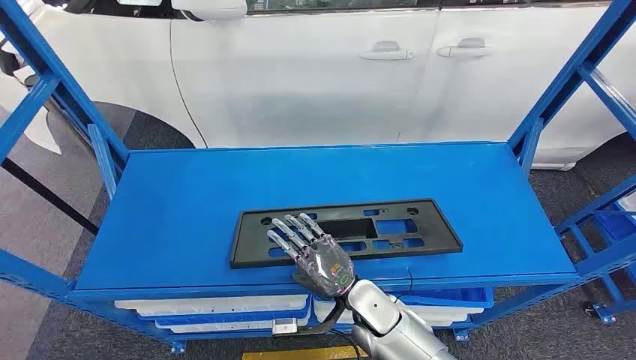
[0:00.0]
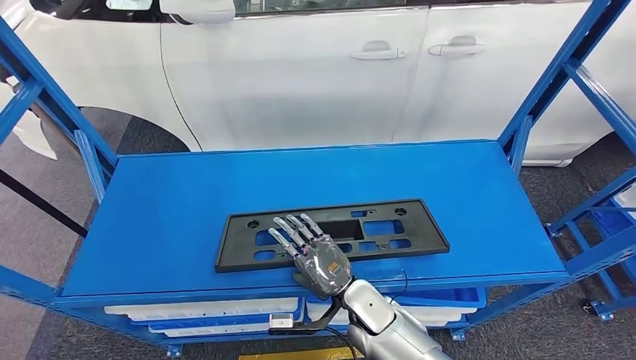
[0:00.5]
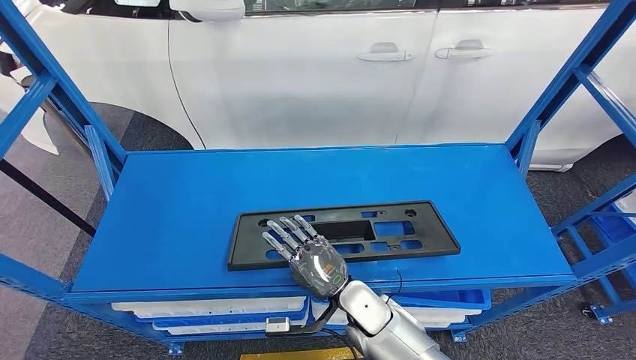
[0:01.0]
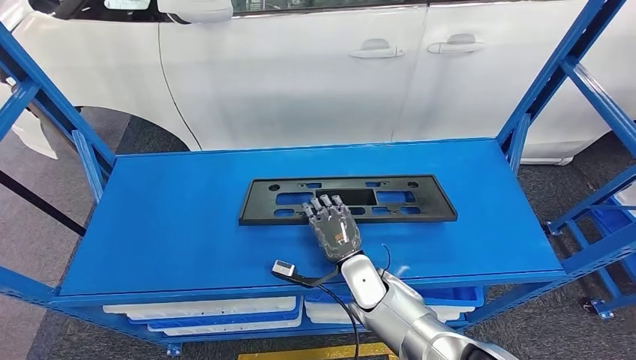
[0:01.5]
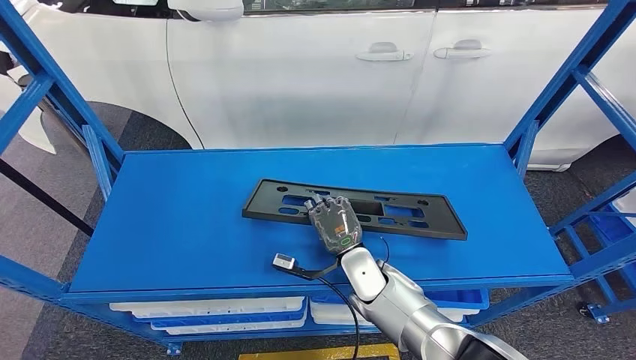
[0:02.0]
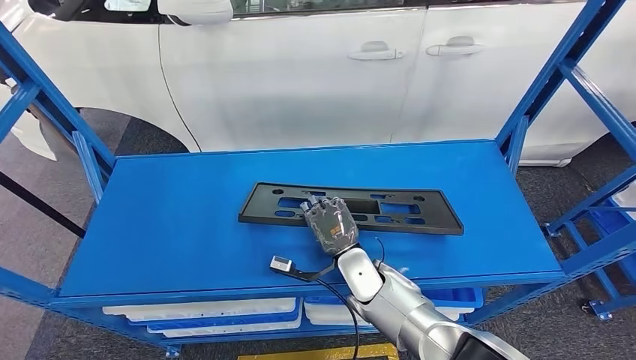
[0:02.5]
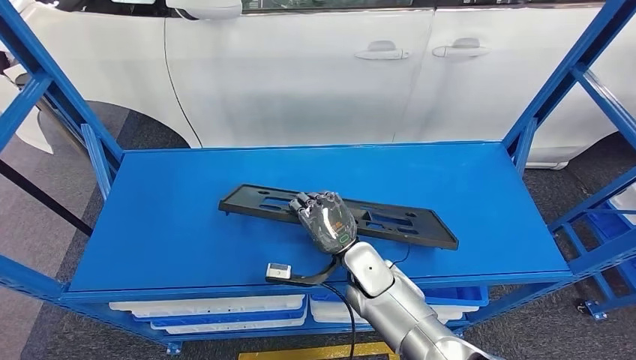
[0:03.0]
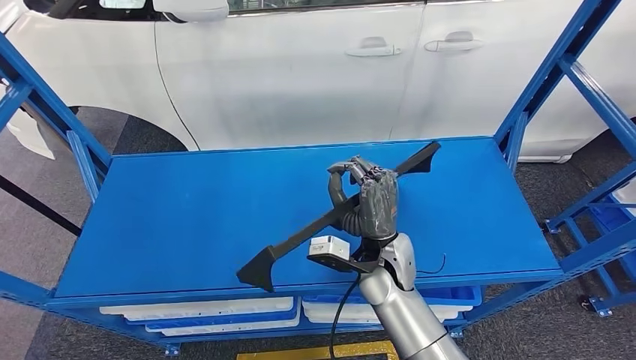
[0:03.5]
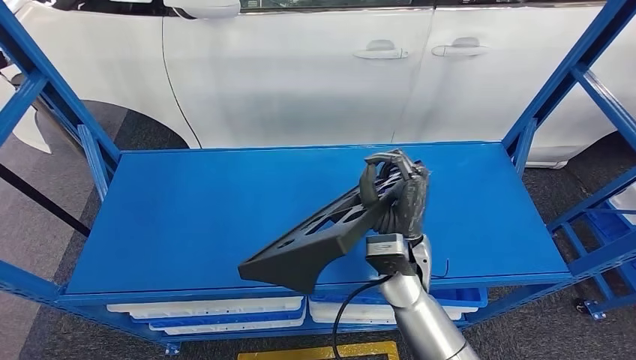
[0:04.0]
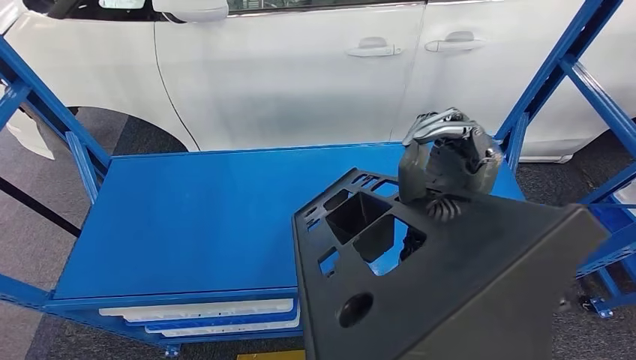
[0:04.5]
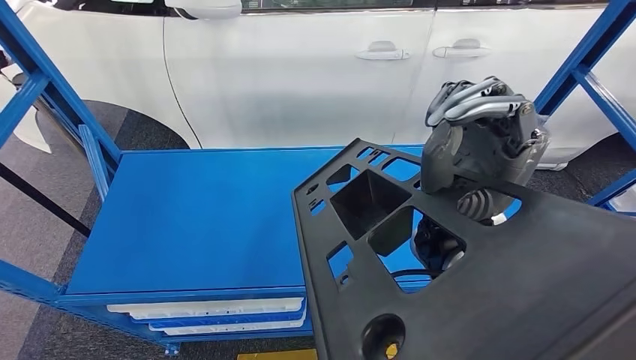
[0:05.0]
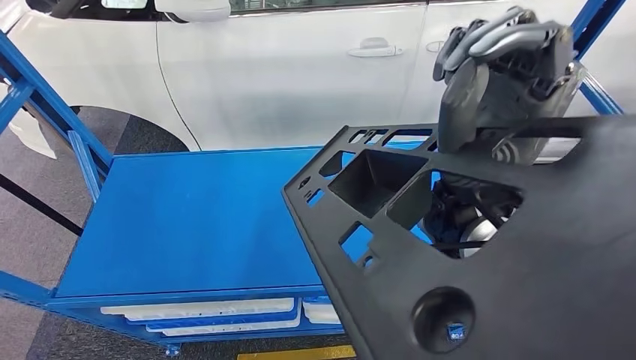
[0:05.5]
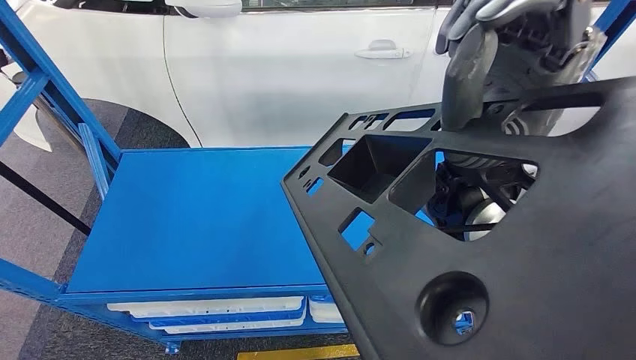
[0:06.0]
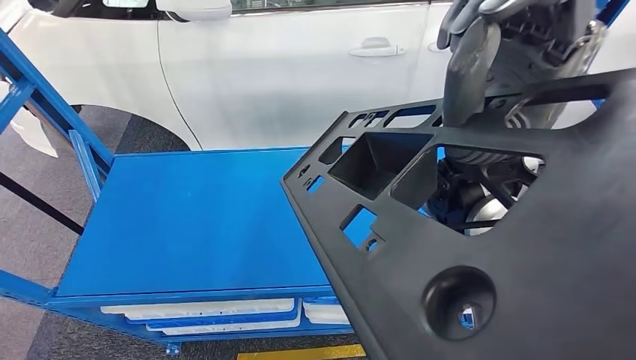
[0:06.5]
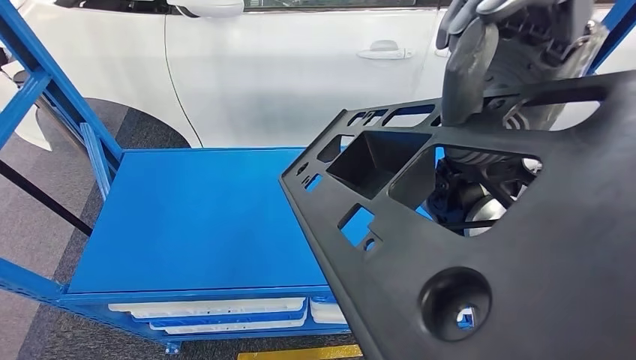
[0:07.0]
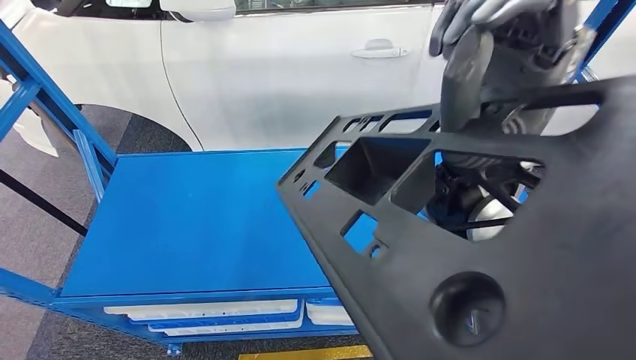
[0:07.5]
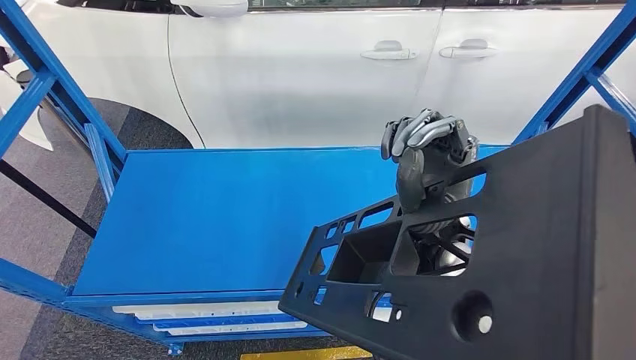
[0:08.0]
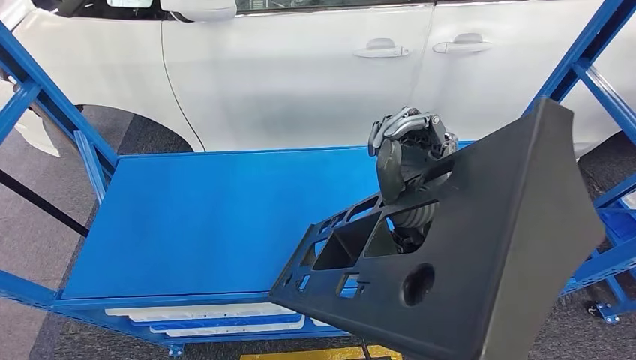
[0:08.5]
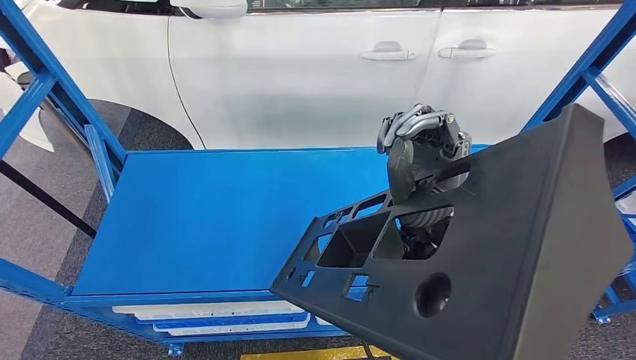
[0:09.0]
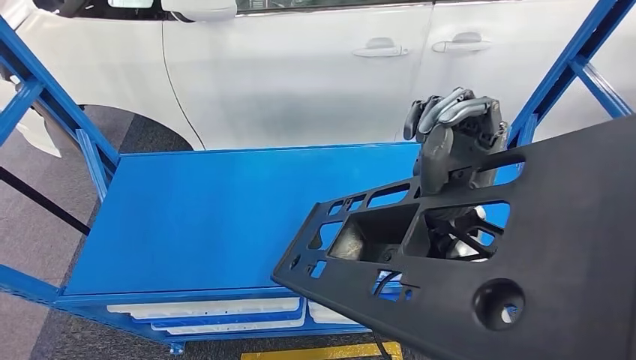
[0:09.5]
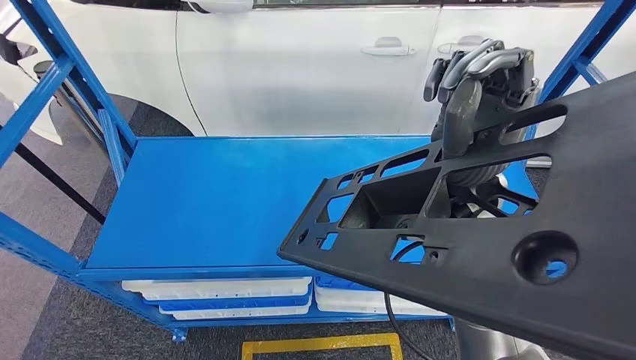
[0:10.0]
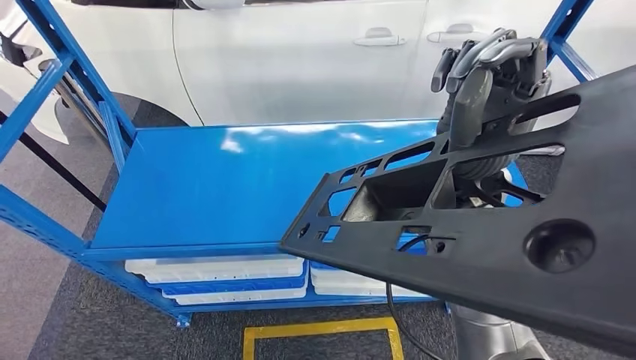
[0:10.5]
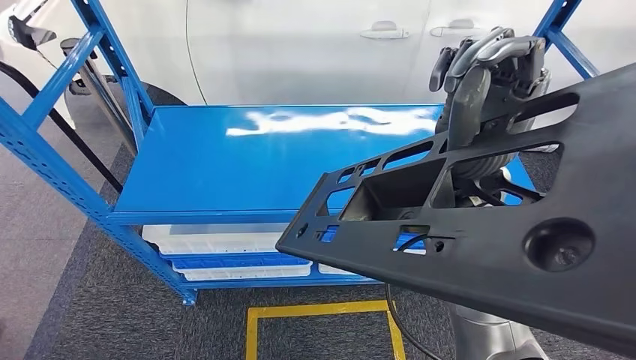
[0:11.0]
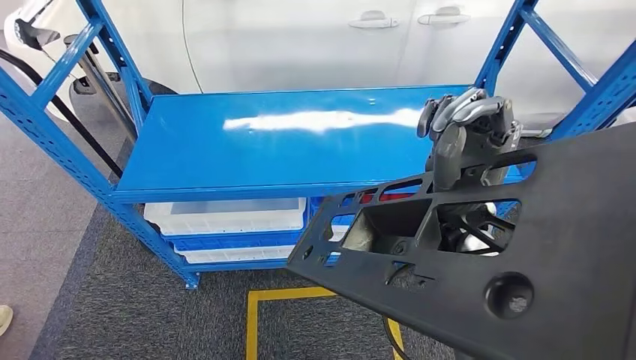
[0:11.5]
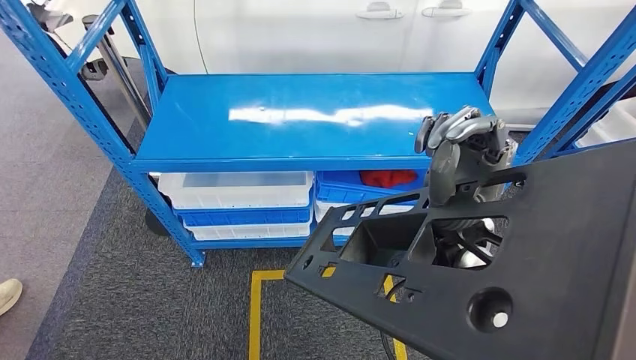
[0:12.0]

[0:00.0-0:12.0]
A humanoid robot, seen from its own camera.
Step, 0:00.0 to 0:11.5: Pick up the large material from the shelf.
0:02.0 to 0:04.0: The right hand moves upward, approximately 10 cm.

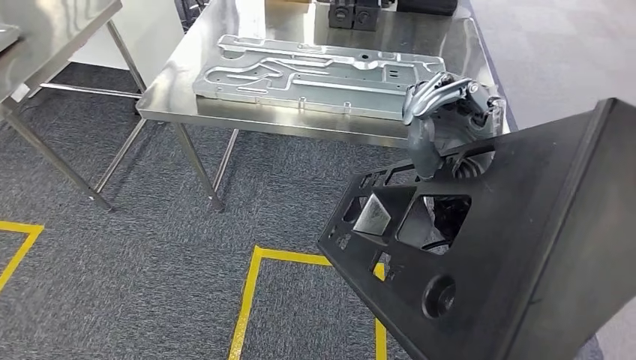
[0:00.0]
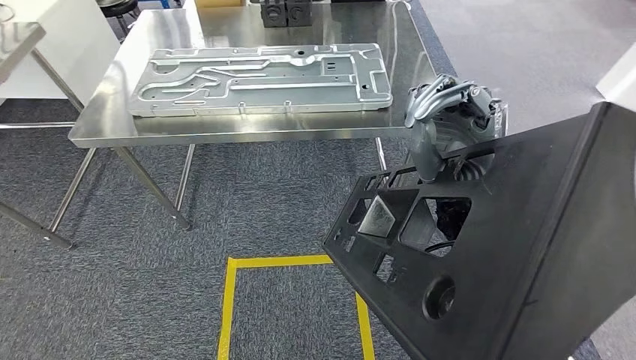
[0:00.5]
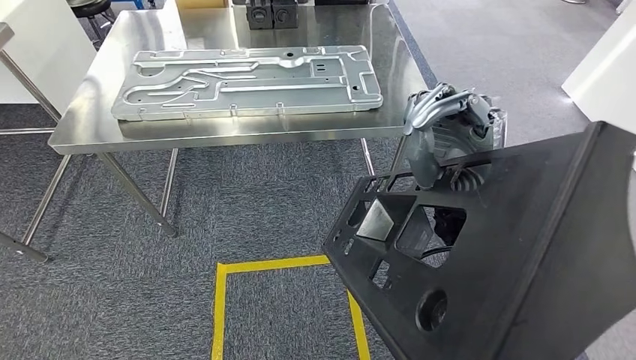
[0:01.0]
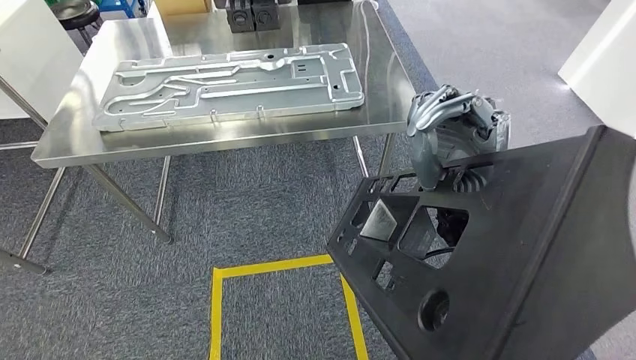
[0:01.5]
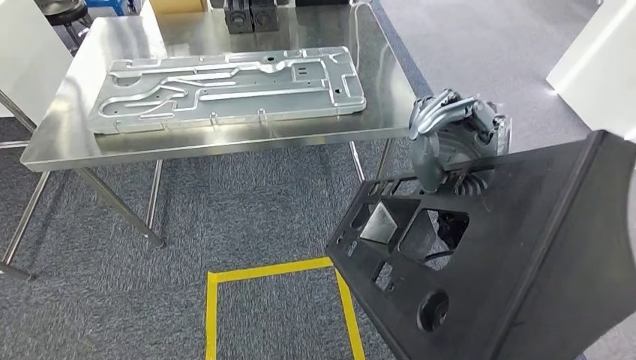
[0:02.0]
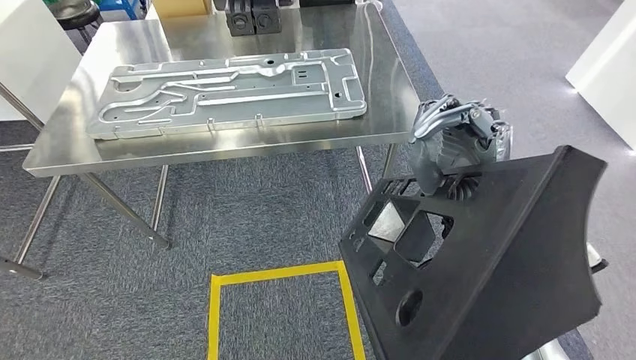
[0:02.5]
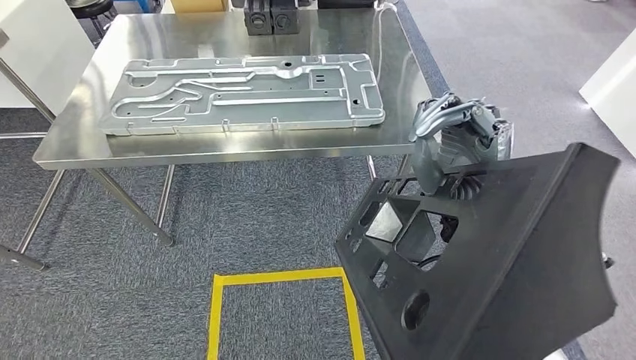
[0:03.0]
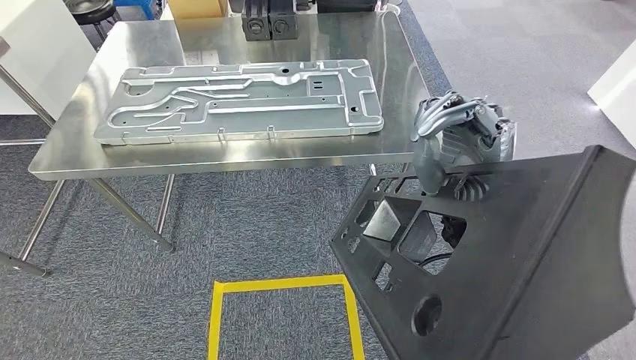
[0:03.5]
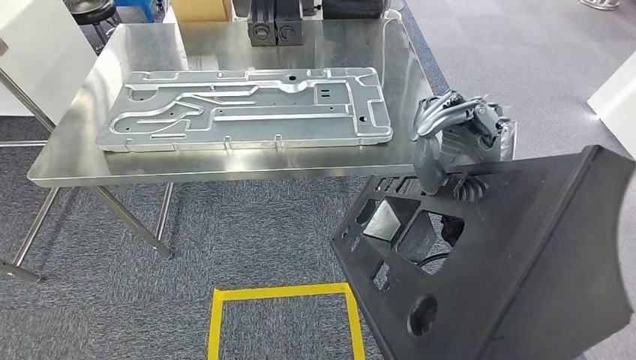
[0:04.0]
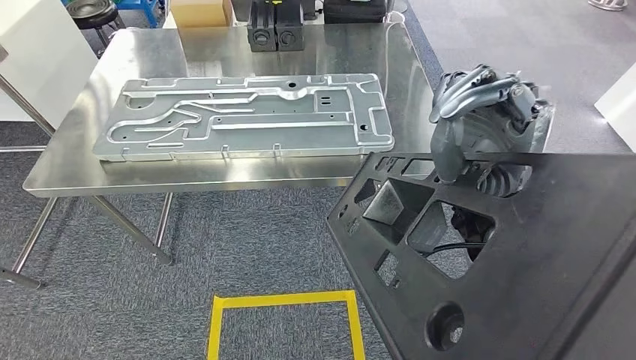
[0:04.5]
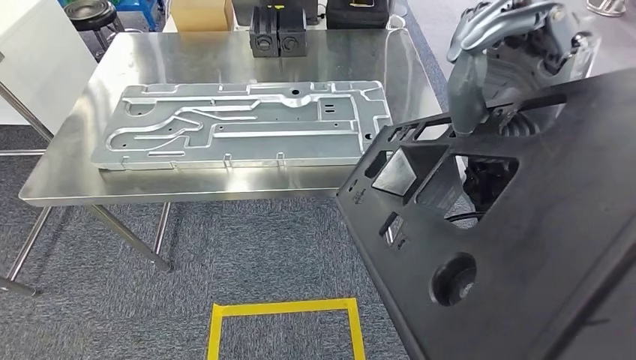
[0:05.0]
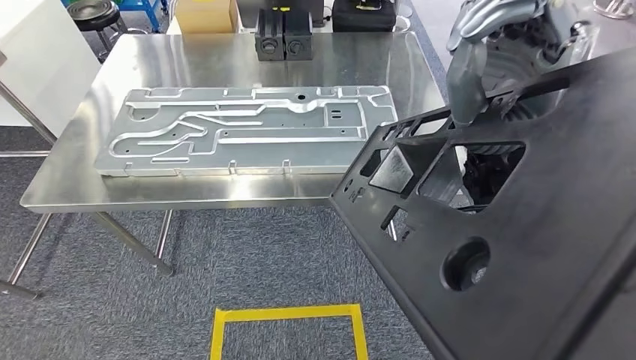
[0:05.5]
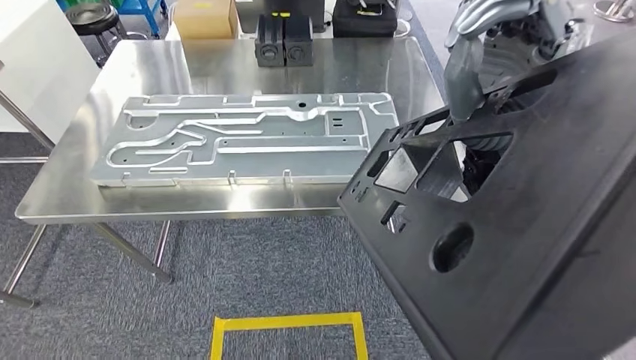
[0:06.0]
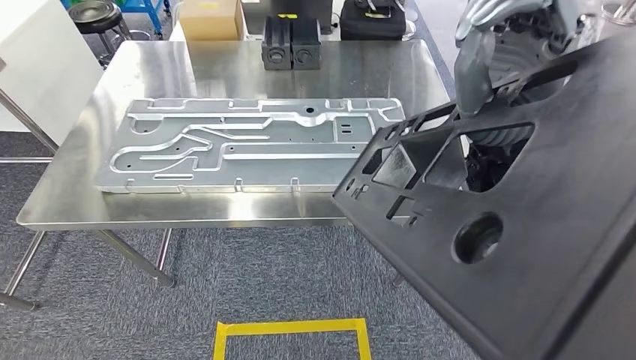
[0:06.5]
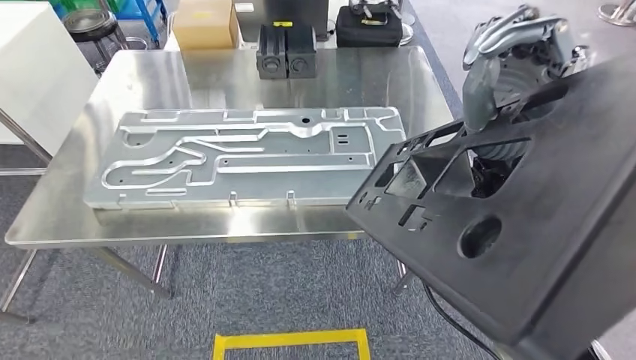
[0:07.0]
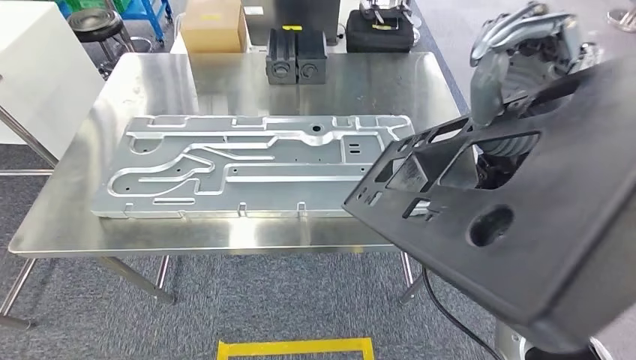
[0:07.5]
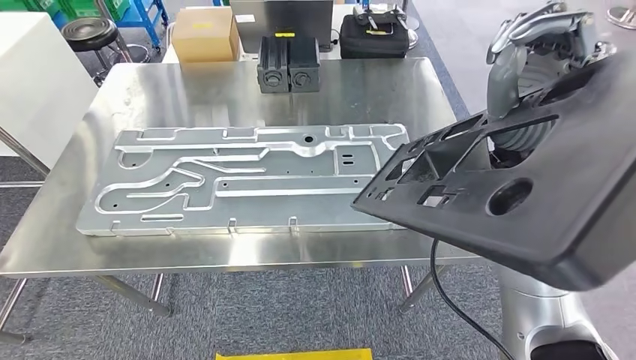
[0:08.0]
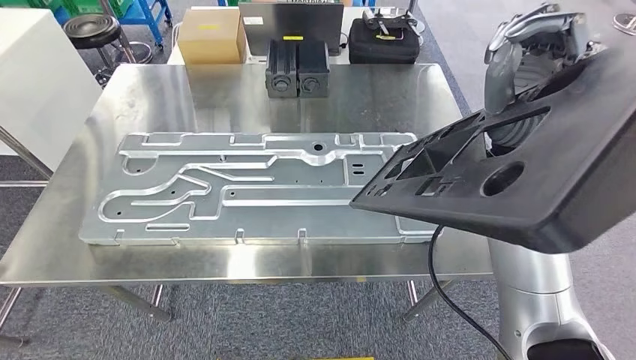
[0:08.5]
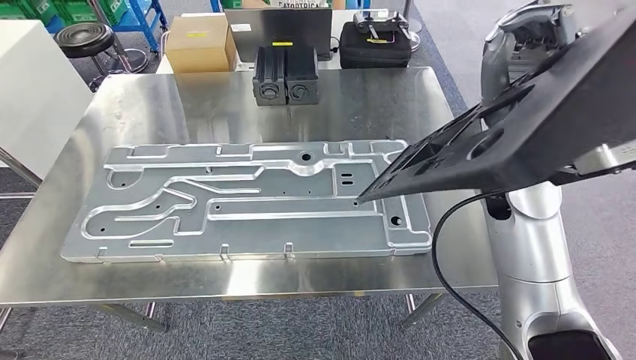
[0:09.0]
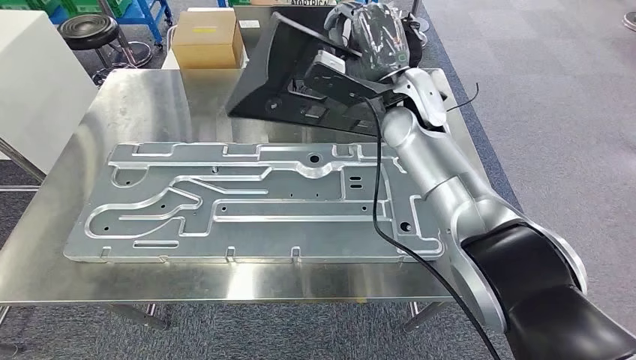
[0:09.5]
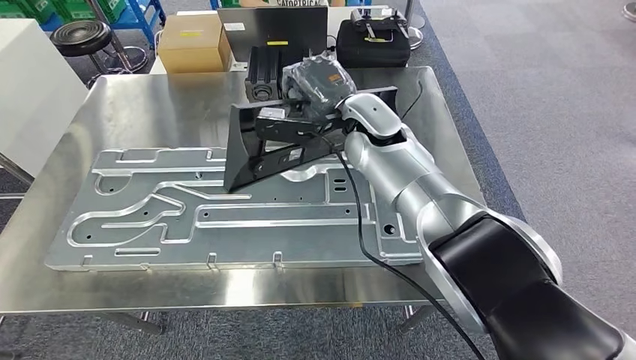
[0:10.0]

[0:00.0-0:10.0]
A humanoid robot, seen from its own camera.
Step, 0:00.0 to 0:09.0: Move the large material to the workbench.
